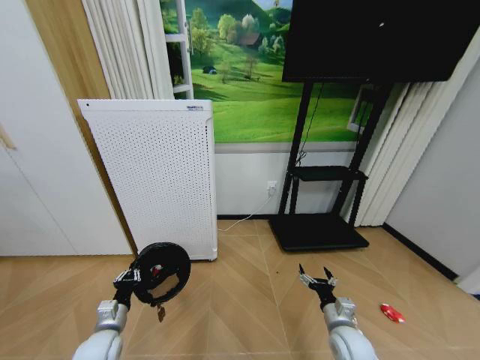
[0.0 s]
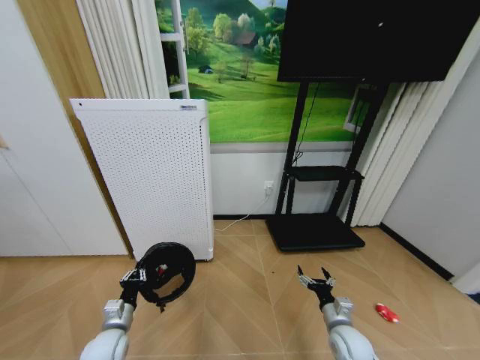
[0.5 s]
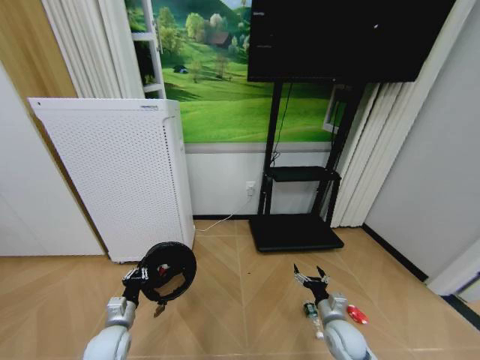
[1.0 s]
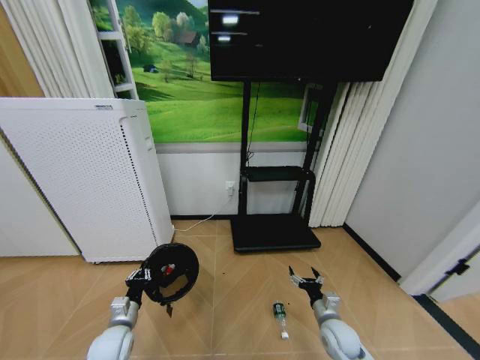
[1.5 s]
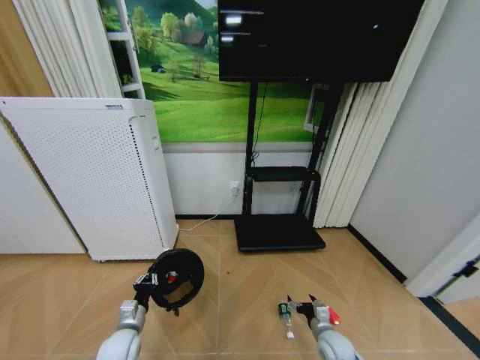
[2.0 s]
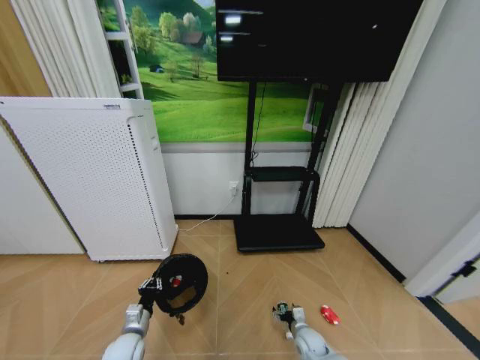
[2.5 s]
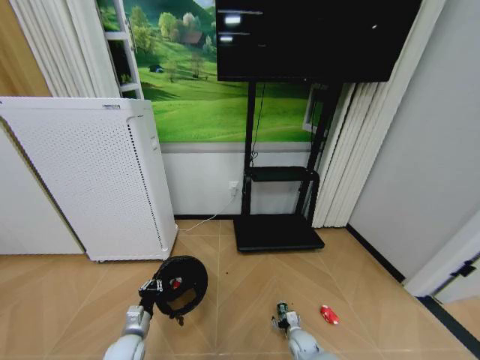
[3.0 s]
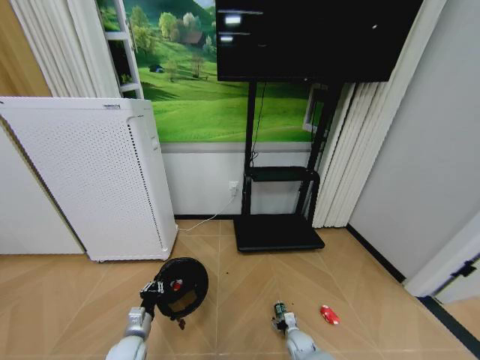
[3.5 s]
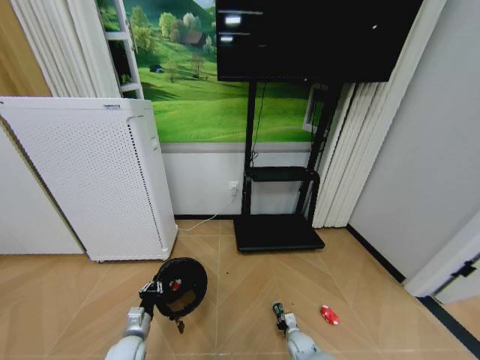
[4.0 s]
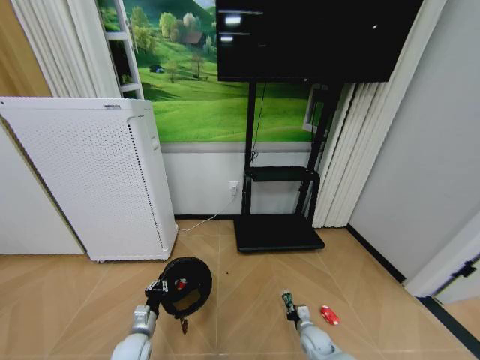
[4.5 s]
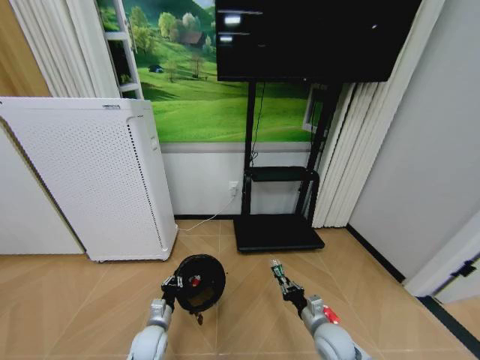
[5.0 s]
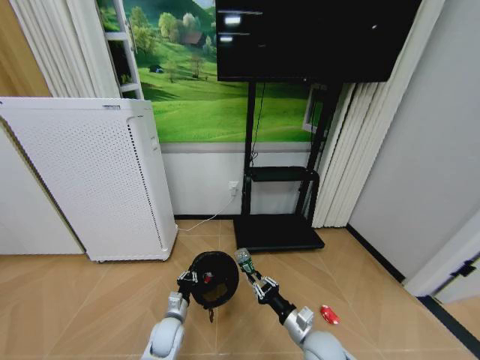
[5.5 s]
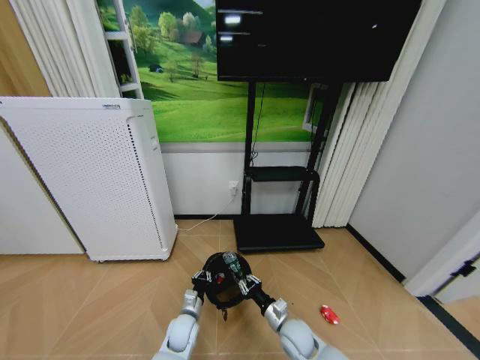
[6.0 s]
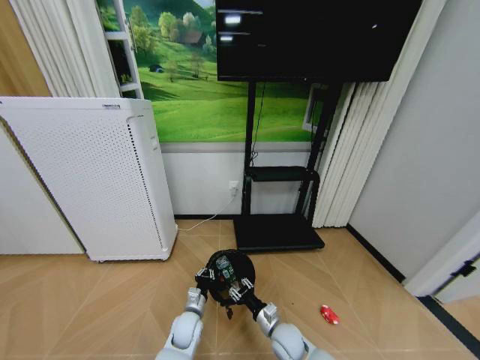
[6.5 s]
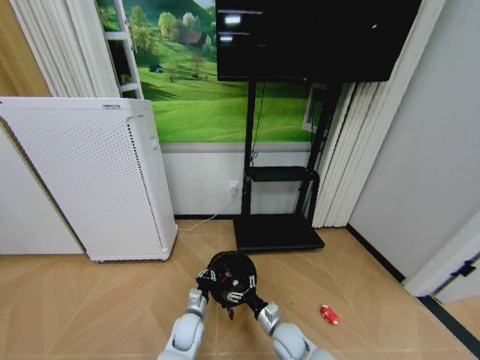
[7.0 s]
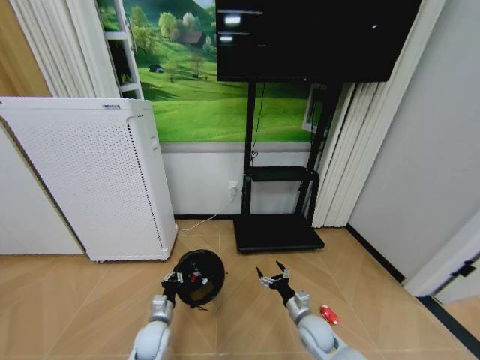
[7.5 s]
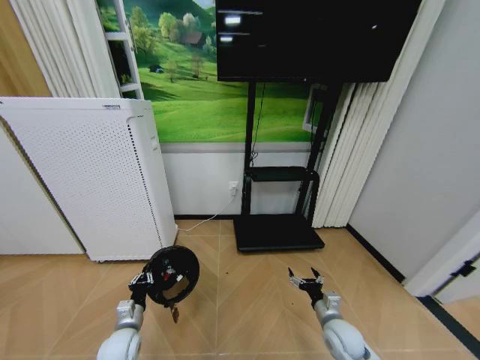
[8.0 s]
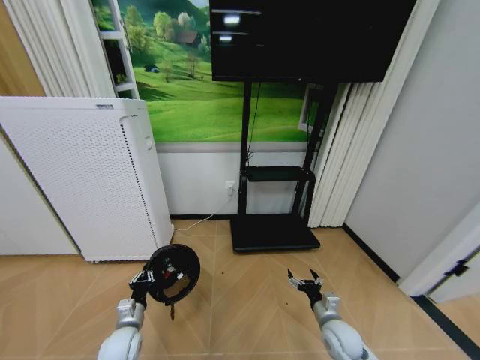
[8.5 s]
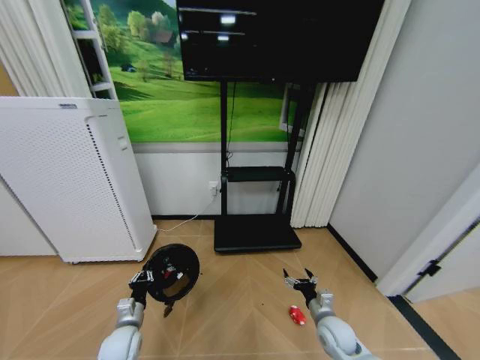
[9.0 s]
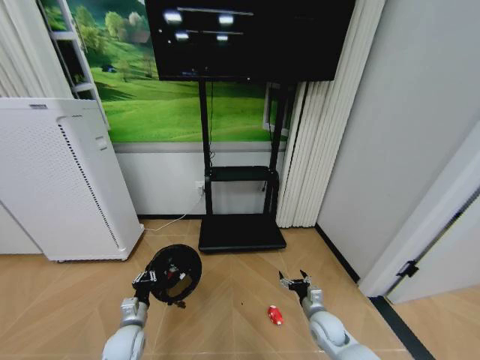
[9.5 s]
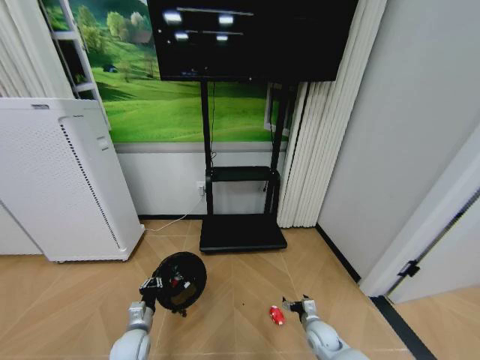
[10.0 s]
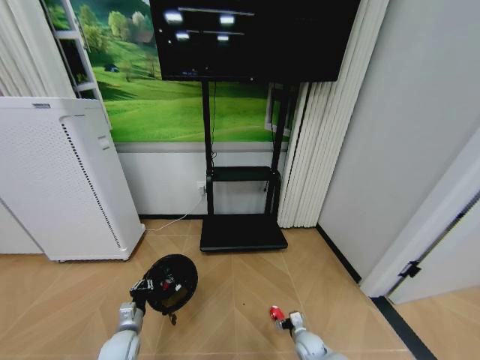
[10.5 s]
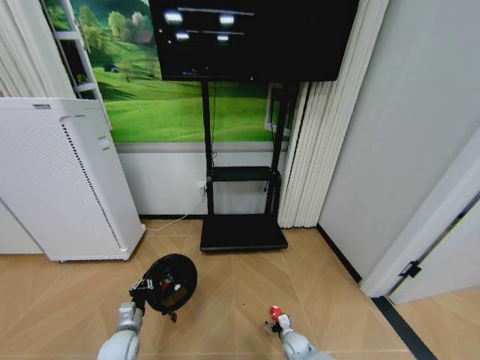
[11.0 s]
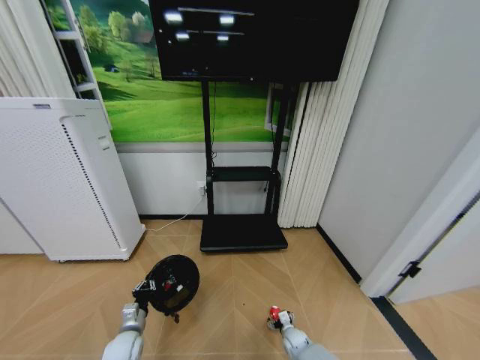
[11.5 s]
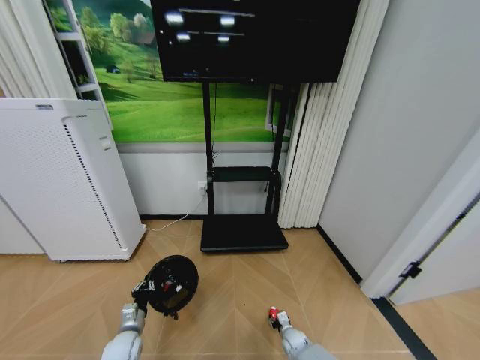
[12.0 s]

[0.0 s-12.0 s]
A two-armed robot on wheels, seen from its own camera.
Task of the whole recording: Pick up the trash bin and place the garbage on the floor into it.
0.0 to 2.0 s: The left gripper ends up some 5 cm from where it was. Meanwhile the right gripper travels downward by some 10 cm.
2.0 to 4.0 s: The right gripper moves downward and to the left, about 15 cm, and closes up.
4.0 to 6.0 s: The left gripper travels to the right and forward by about 15 cm. Meanwhile the right gripper goes approximately 15 cm upward.
6.0 to 8.0 s: The left gripper travels to the left by roughly 15 cm; the right gripper goes some 10 cm to the right, and opens.
8.0 to 10.0 s: The right gripper shifts some 10 cm downward.
10.0 to 12.0 s: The right gripper travels downward by roughly 15 cm, and closes its fingers.

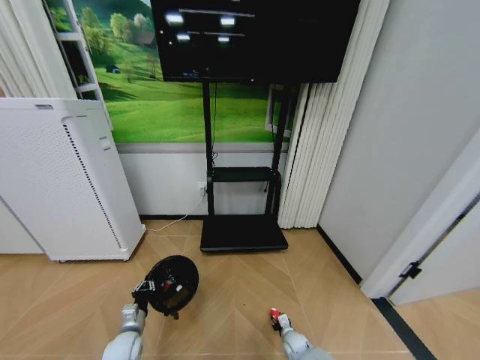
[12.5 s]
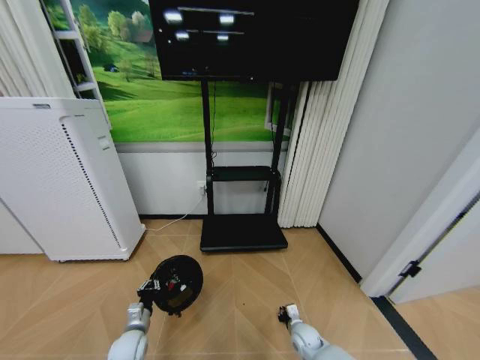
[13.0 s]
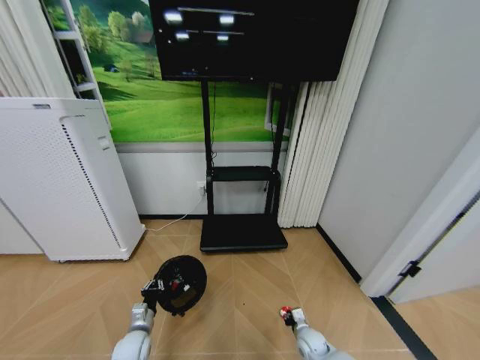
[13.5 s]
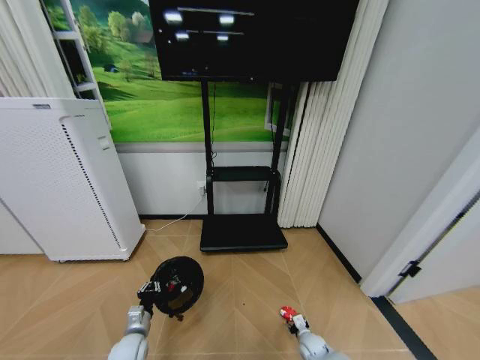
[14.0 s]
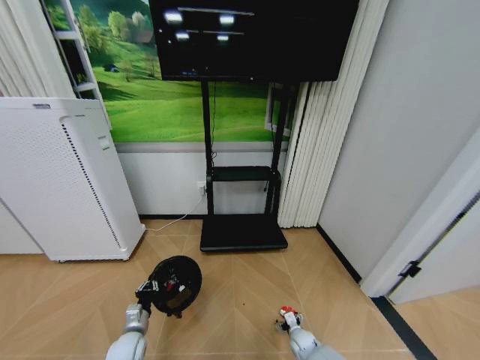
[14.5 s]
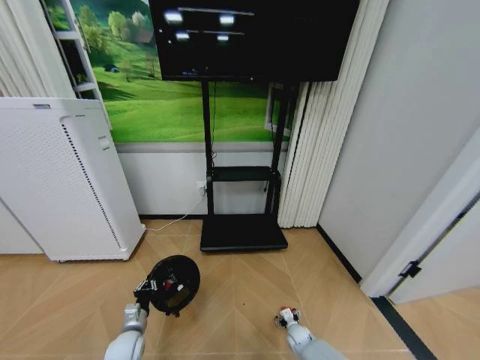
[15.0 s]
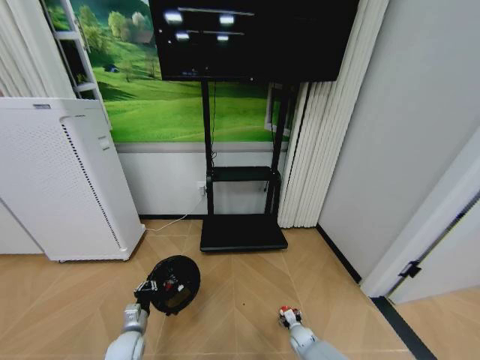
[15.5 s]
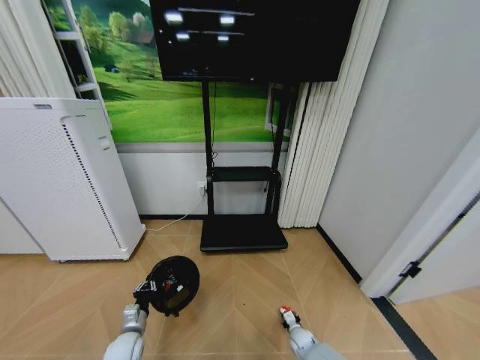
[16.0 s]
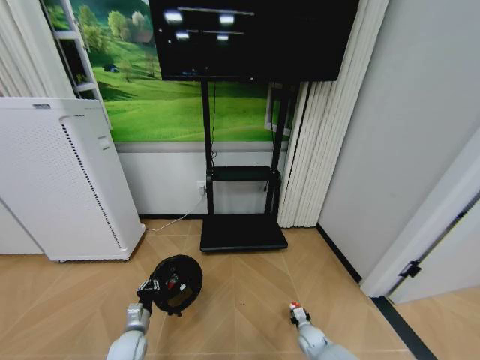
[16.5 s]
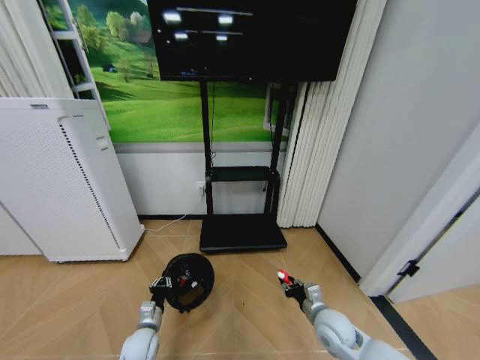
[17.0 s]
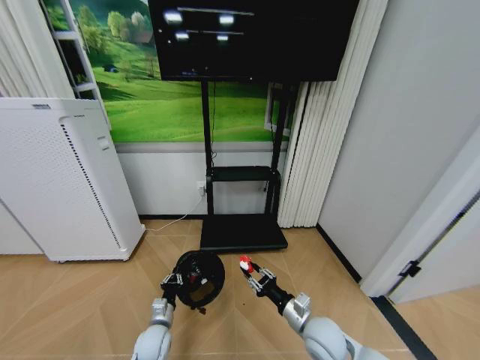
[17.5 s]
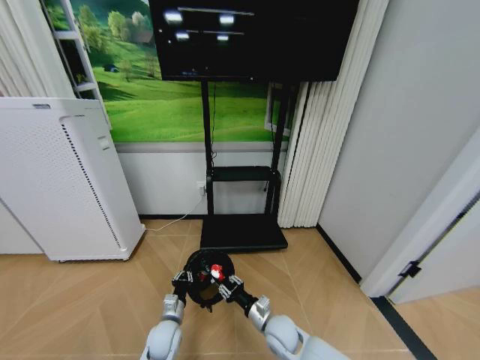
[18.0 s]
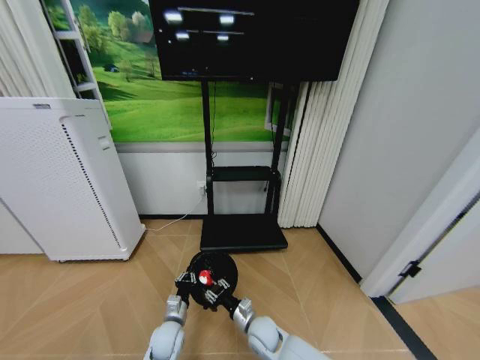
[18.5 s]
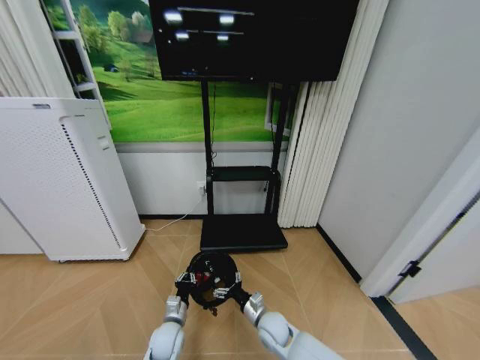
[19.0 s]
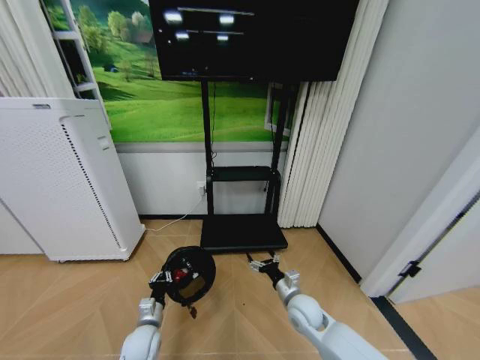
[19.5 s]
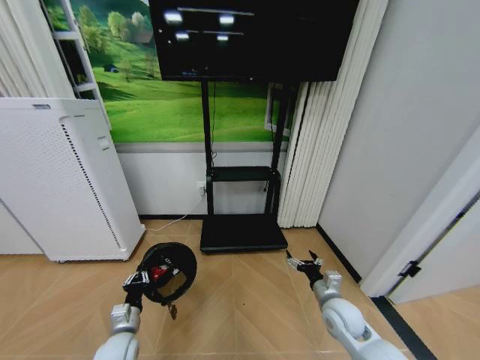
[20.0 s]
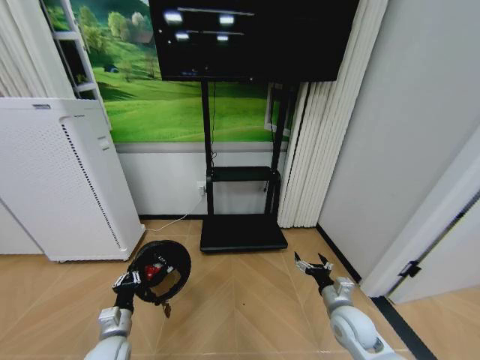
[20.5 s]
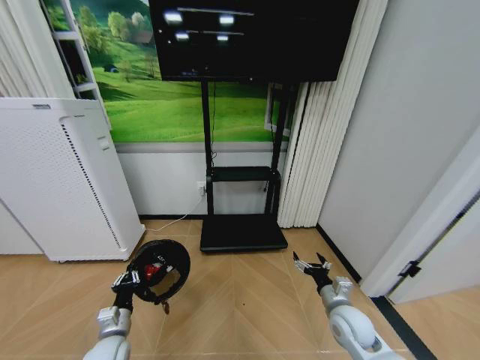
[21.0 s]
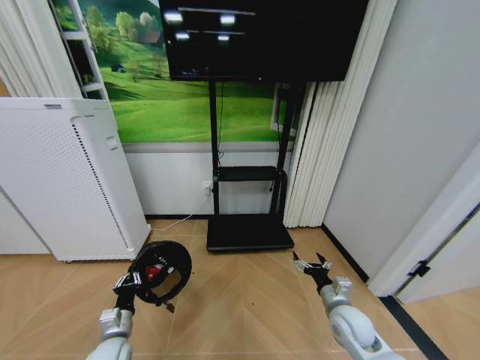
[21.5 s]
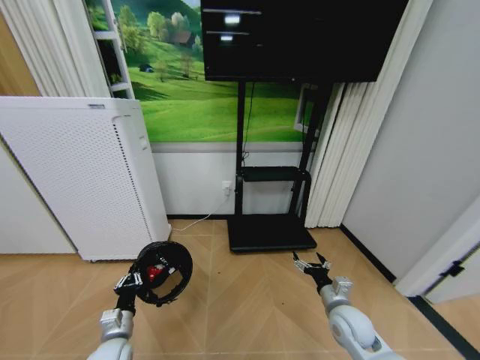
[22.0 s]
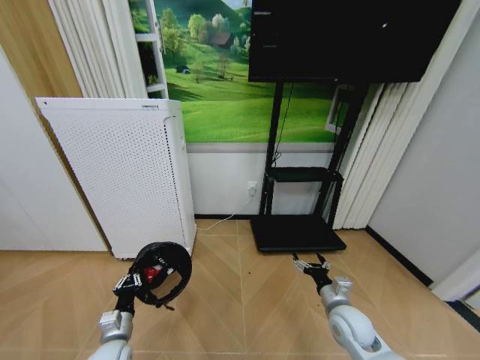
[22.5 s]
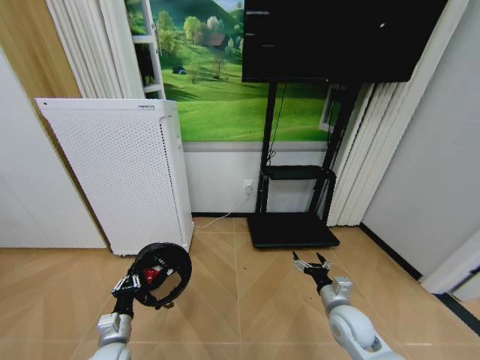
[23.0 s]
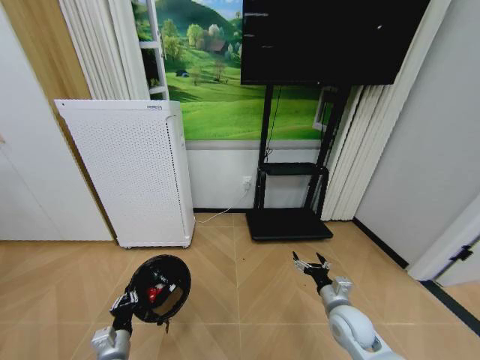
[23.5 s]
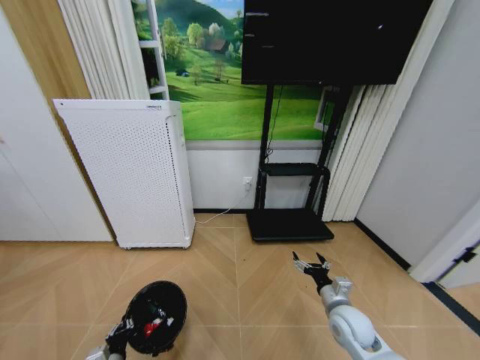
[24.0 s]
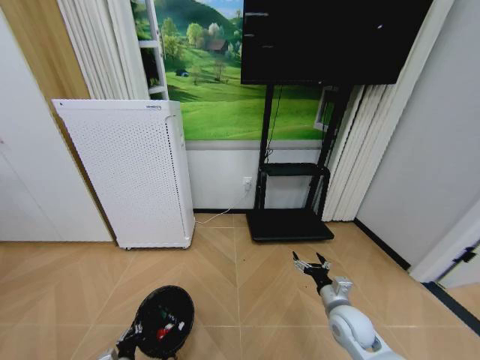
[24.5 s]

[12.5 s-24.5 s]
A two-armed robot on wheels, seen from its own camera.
Task of the whole recording: Pick up the trash bin and place the garbage on the floor into it.
12.5 to 14.5 s: The right gripper moves approximately 10 cm upward and comes back, and opens.
14.5 to 16.5 s: The right gripper closes up.
16.5 to 18.5 s: The left gripper goes roughly 10 cm to the right; the right gripper heads to the left and upward, covering roughly 25 cm.
18.5 to 20.5 s: The right gripper heads to the right and upward, covering roughly 25 cm, and opens. The left gripper is displaced to the left, upward and backward by approximately 15 cm.
22.5 to 24.5 s: The left gripper goes about 10 cm downward and backward.

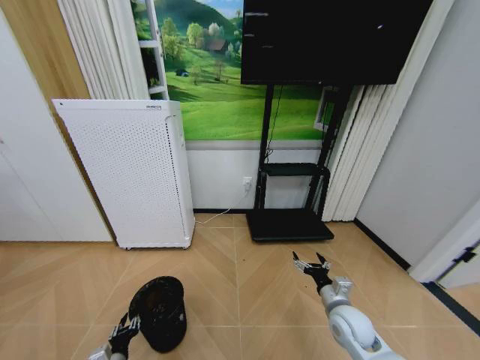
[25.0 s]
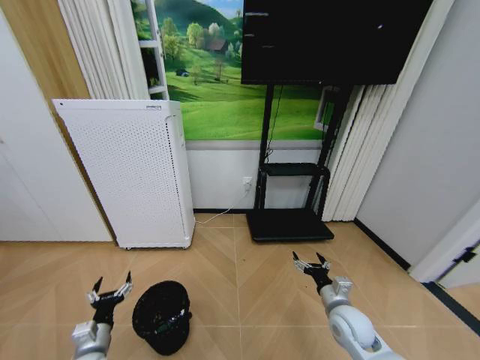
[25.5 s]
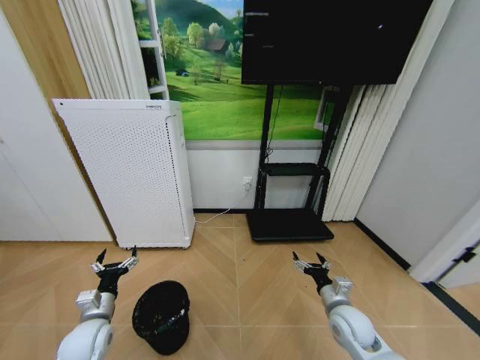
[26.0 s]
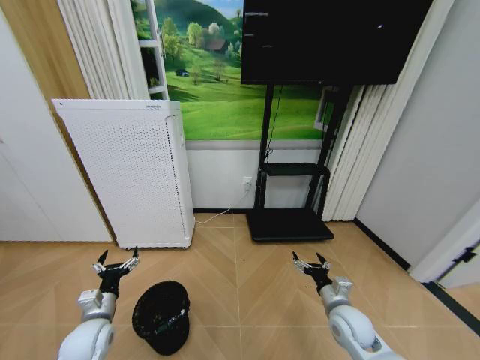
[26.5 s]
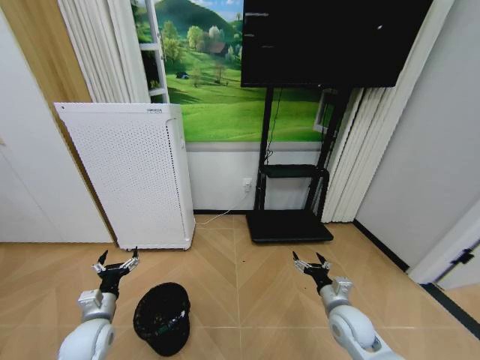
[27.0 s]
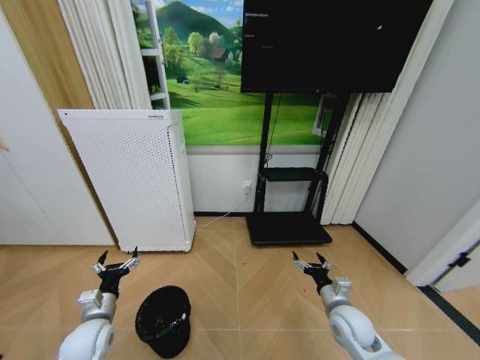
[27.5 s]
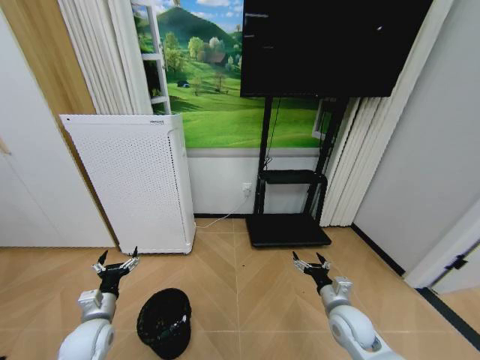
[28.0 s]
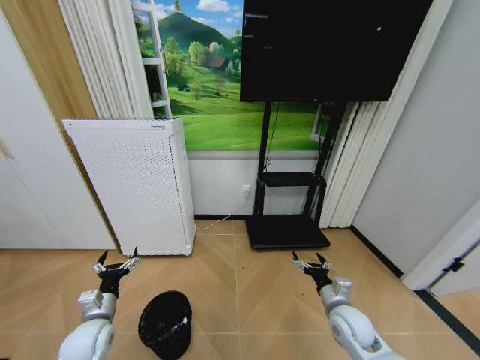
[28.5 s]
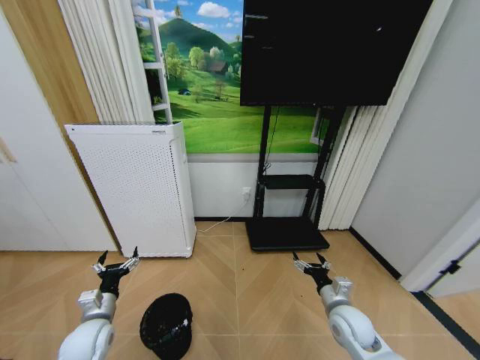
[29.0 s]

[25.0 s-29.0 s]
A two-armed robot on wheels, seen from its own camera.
Task of the whole recording: Pick up the trash bin and place the garbage on the floor into it.
25.0 to 27.0 s: The left gripper shifts roughly 15 cm upward and forward, and opens.
27.0 to 29.0 s: Neither gripper changes place.
